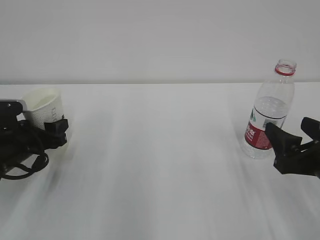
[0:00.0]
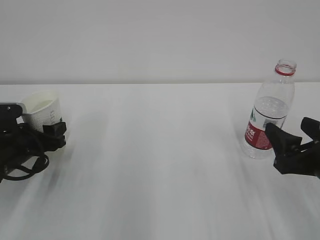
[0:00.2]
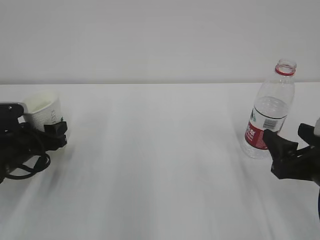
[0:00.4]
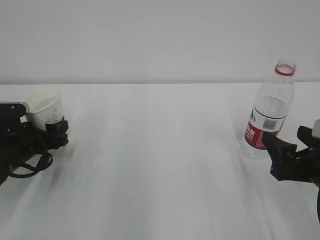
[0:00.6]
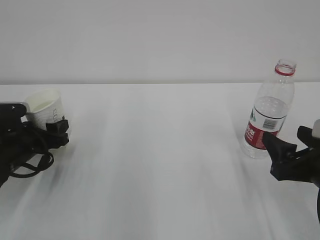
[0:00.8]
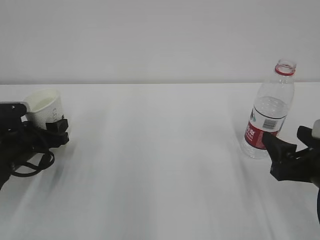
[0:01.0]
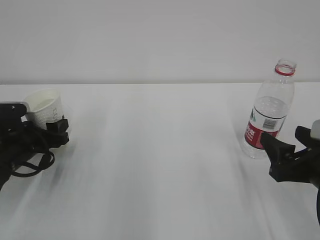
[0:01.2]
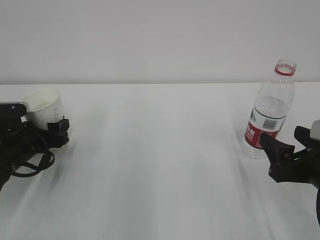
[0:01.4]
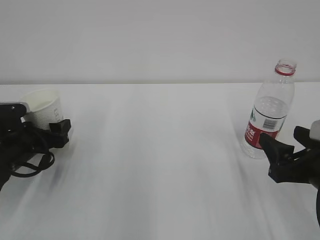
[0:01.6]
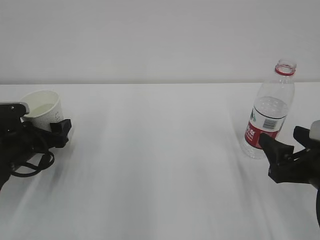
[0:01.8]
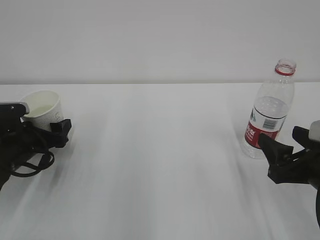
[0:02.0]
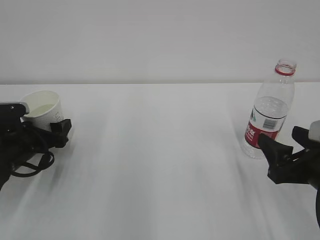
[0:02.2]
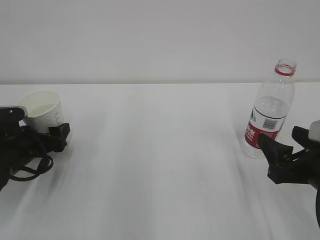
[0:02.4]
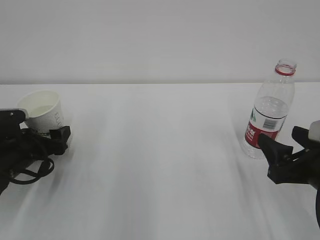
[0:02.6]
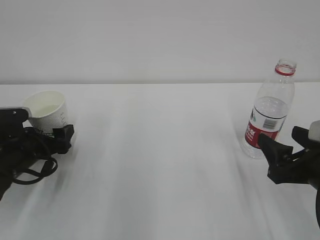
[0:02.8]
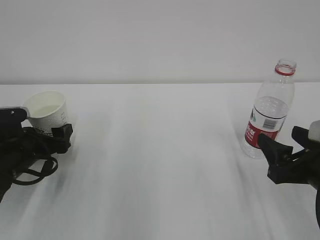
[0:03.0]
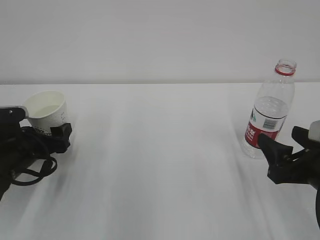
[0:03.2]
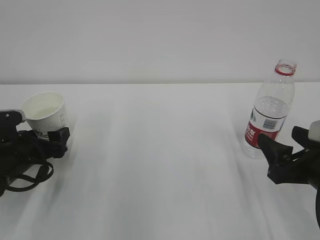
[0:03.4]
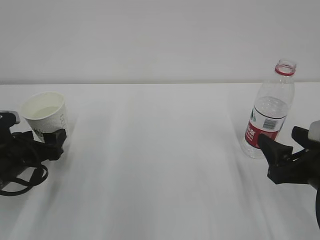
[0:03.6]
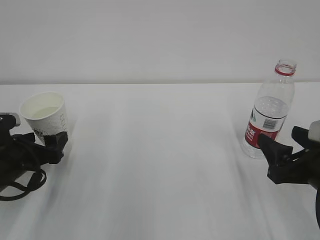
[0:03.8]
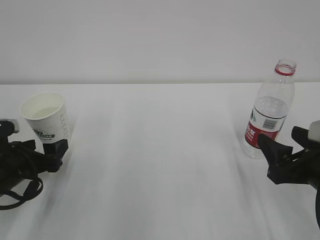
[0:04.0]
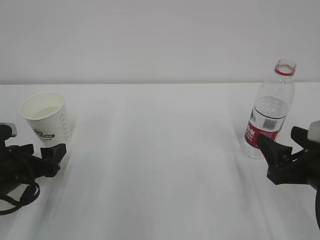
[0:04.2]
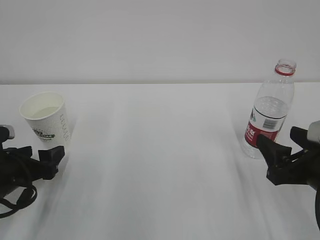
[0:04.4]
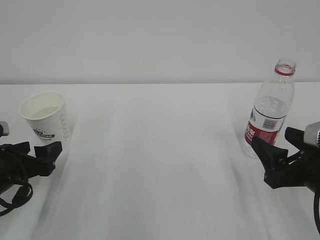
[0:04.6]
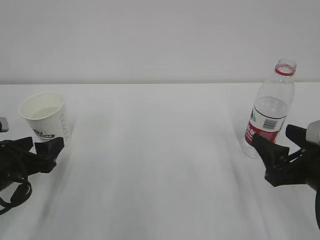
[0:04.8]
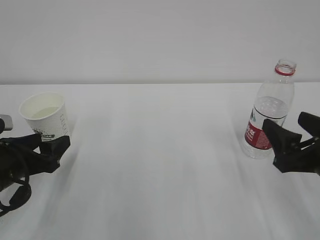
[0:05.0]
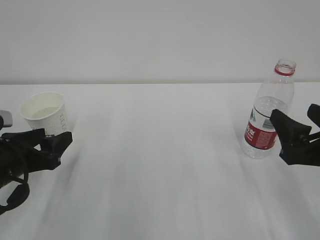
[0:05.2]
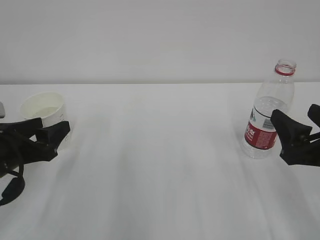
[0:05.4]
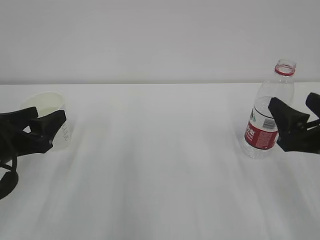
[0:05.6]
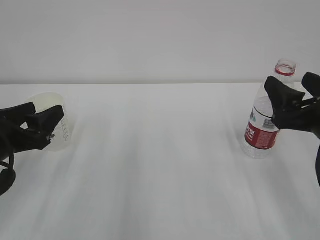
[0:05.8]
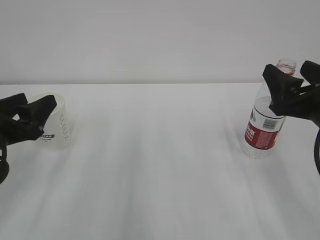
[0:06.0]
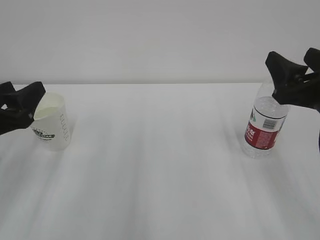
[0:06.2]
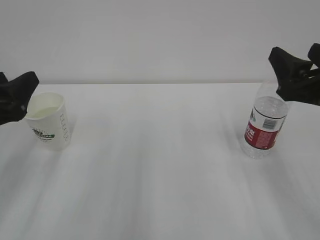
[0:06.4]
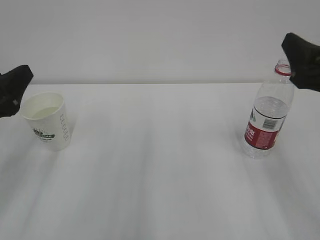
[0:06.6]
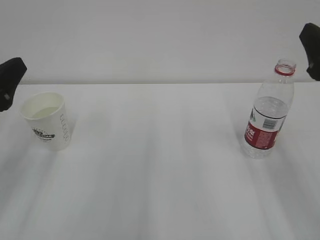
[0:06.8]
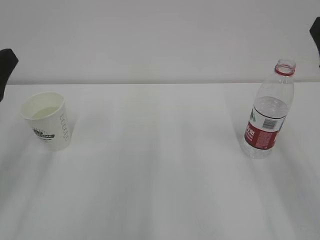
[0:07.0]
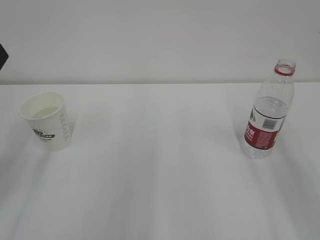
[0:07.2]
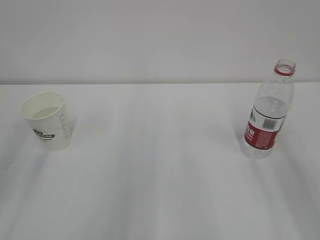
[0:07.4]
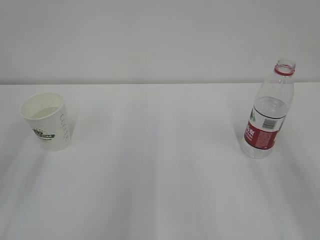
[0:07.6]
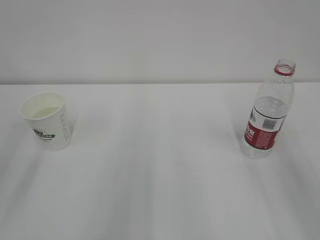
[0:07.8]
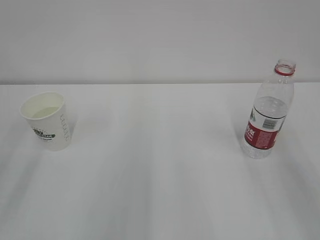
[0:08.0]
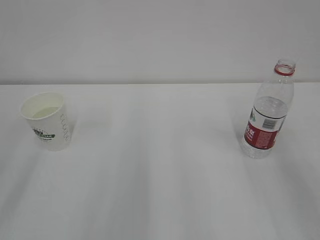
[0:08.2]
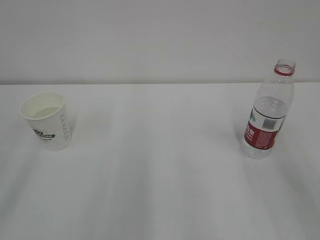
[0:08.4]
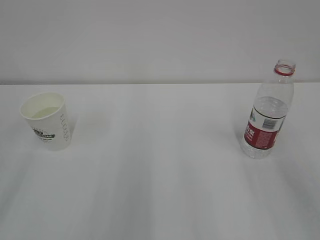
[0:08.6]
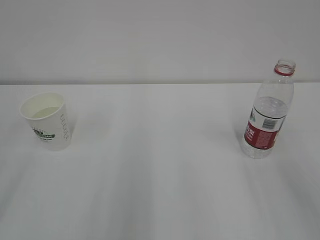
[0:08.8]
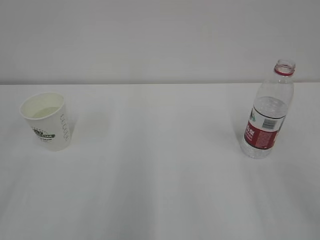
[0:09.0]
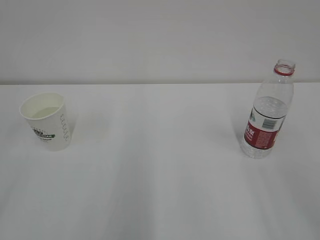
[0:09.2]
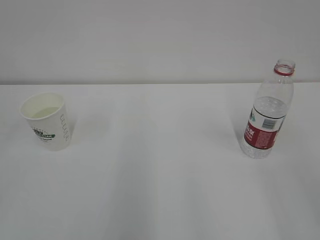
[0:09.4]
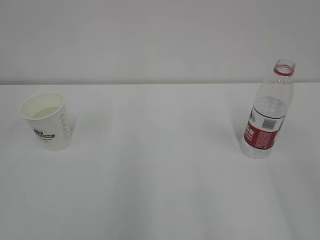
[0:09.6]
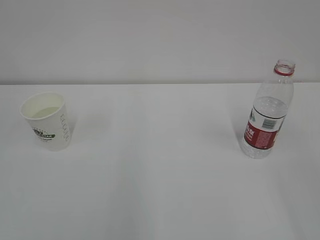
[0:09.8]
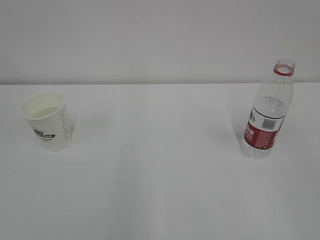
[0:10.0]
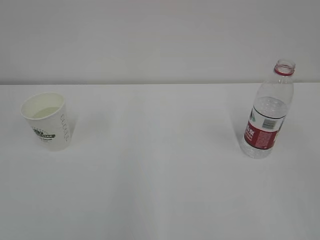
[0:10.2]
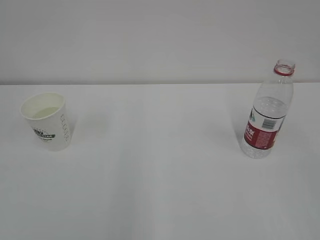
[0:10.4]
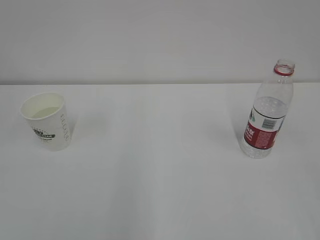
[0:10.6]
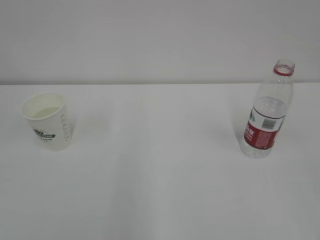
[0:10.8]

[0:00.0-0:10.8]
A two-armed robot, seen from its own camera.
0:00.0 to 0:01.6: The left gripper opens its fingers.
0:01.6 to 0:03.0: The grippers stay close to where they were, moving slightly.
0:03.0 to 0:04.6: The left gripper goes roughly 5 cm backward.
0:04.6 to 0:06.2: Both grippers move upward, some 10 cm.
0:06.2 to 0:07.8: Both grippers move upward and backward, some 10 cm.

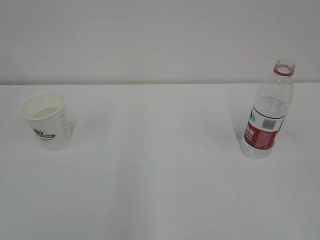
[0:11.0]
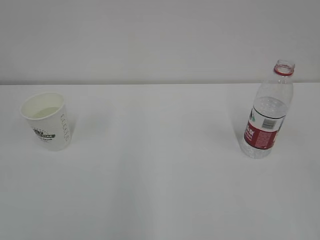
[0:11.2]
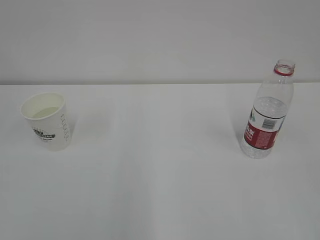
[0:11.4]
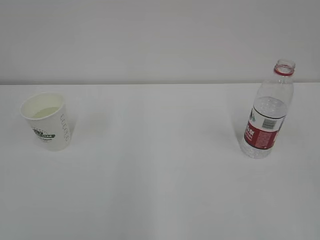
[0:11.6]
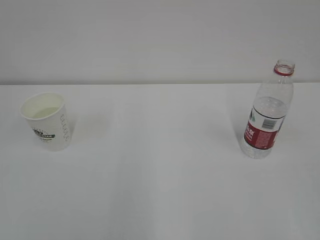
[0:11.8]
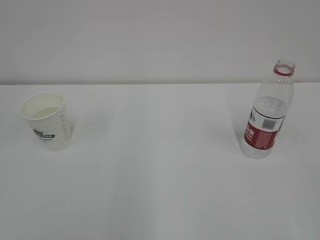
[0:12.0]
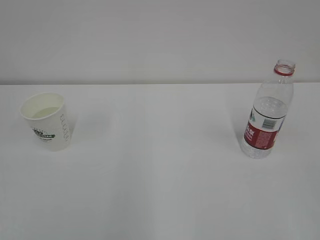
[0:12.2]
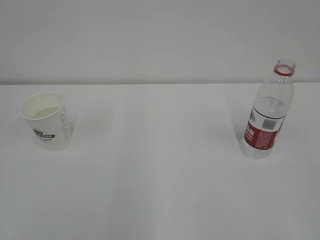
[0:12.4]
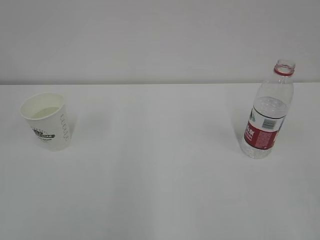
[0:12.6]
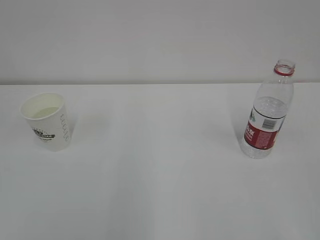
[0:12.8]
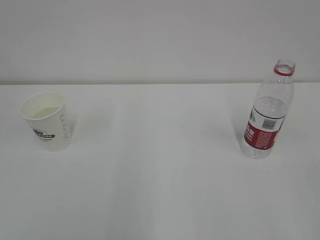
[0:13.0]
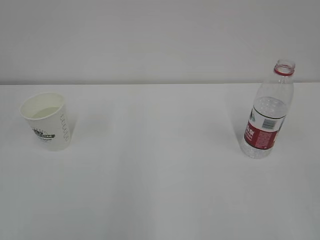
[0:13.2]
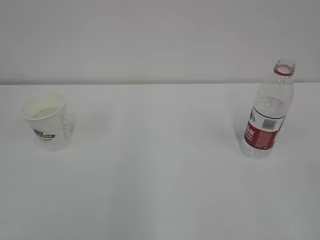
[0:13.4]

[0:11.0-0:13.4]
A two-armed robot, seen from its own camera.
0:12.2 to 0:13.4: Neither gripper changes place.

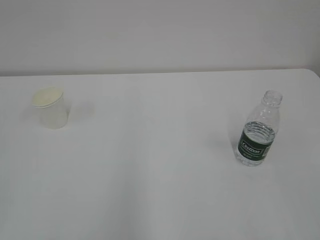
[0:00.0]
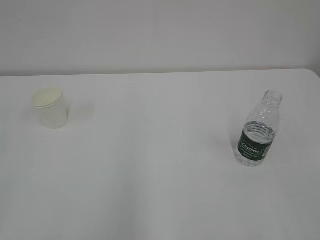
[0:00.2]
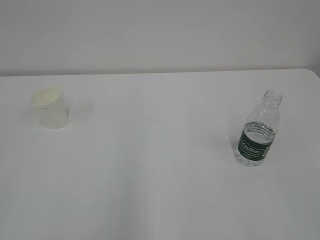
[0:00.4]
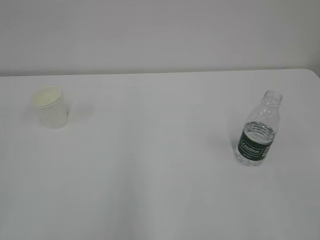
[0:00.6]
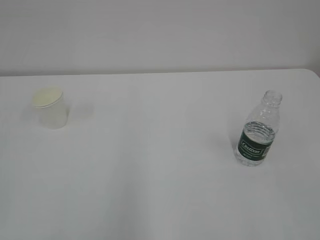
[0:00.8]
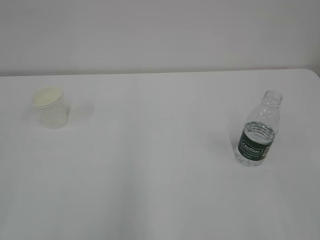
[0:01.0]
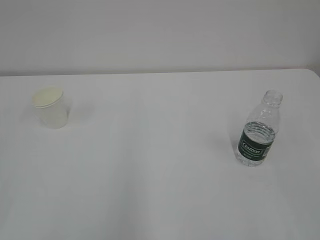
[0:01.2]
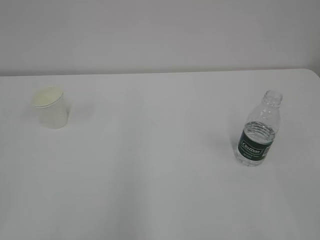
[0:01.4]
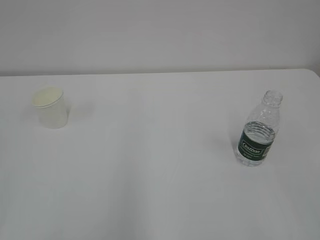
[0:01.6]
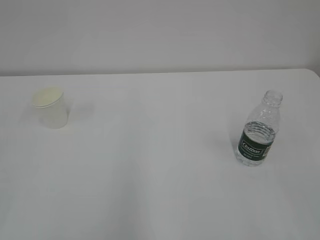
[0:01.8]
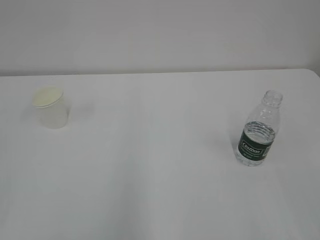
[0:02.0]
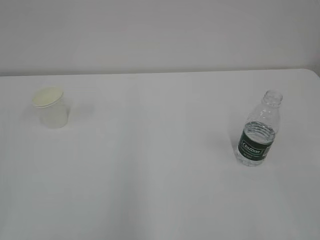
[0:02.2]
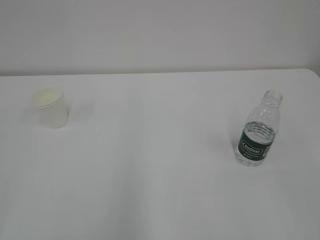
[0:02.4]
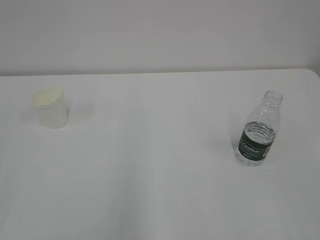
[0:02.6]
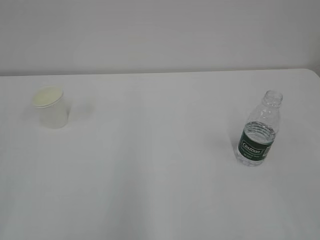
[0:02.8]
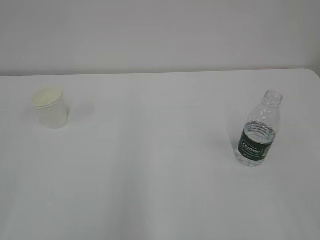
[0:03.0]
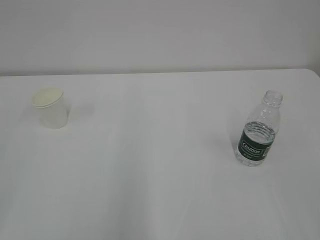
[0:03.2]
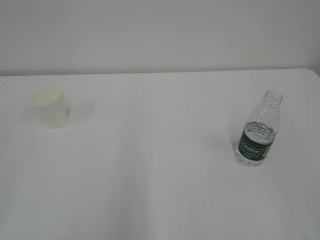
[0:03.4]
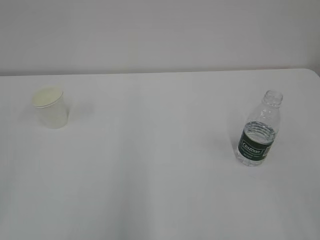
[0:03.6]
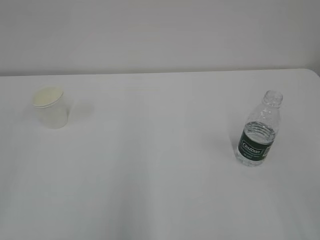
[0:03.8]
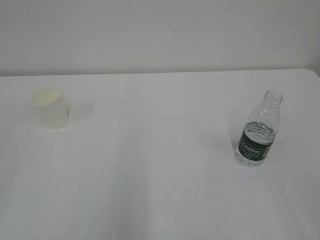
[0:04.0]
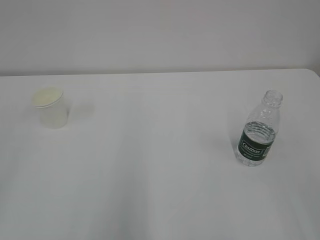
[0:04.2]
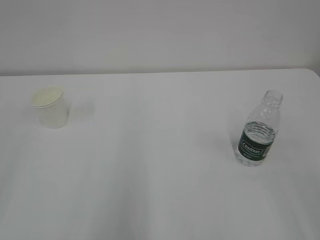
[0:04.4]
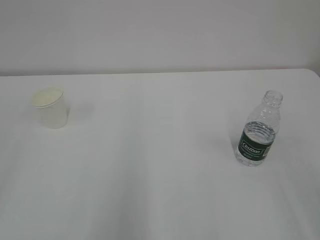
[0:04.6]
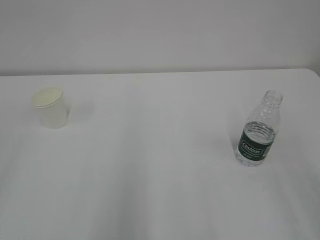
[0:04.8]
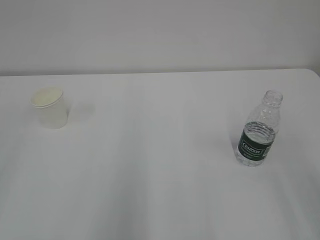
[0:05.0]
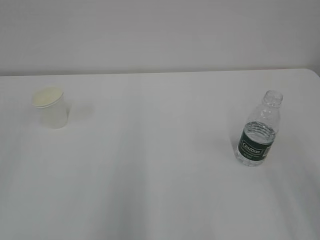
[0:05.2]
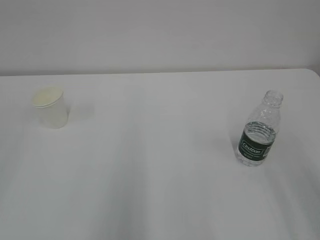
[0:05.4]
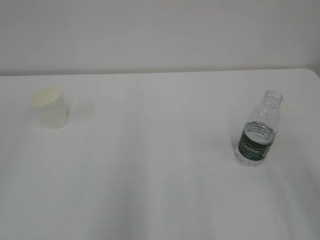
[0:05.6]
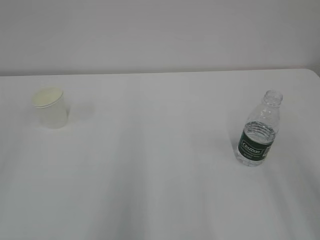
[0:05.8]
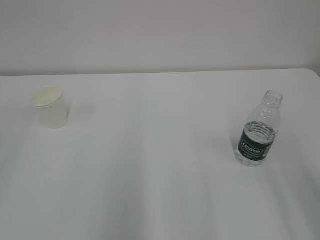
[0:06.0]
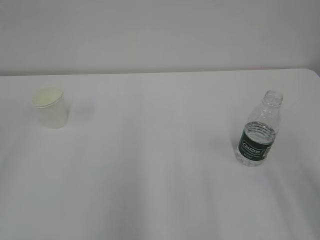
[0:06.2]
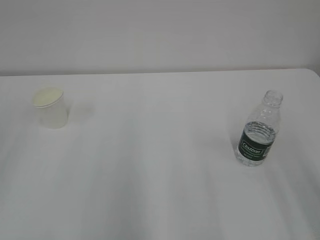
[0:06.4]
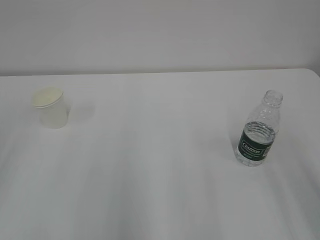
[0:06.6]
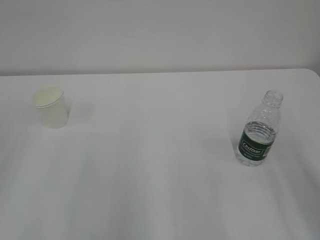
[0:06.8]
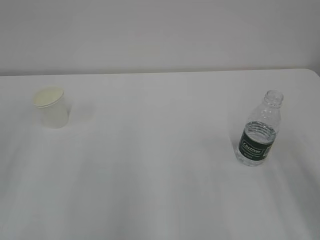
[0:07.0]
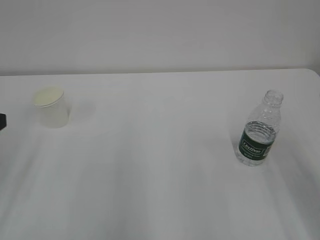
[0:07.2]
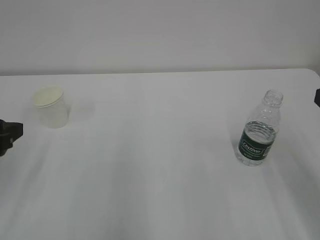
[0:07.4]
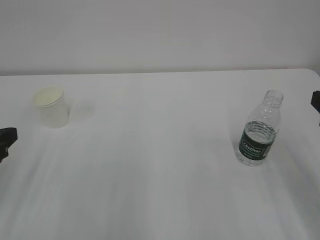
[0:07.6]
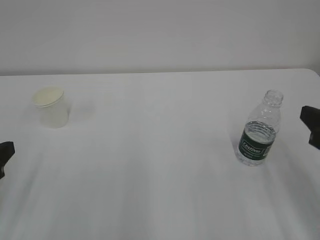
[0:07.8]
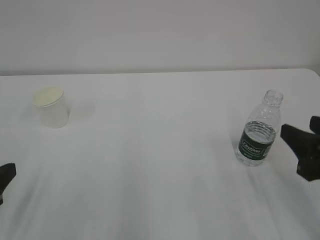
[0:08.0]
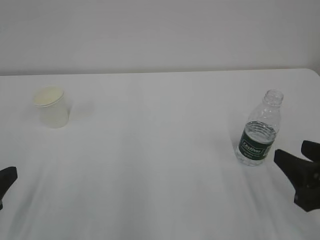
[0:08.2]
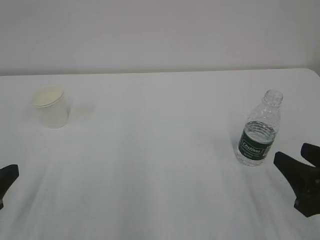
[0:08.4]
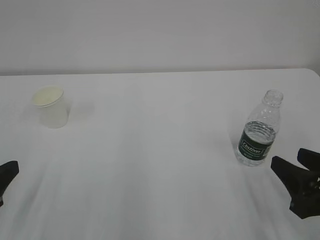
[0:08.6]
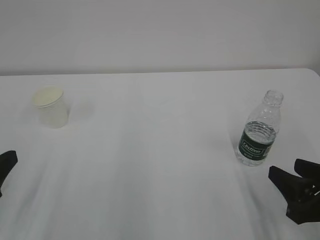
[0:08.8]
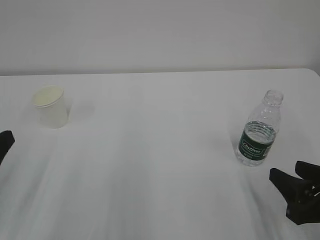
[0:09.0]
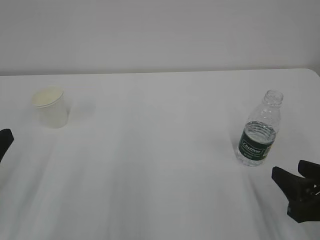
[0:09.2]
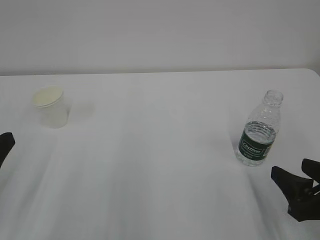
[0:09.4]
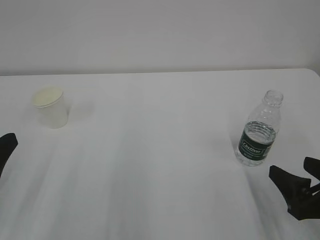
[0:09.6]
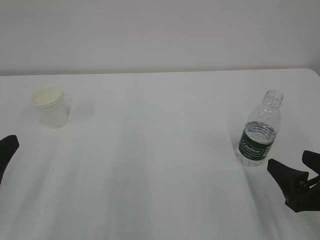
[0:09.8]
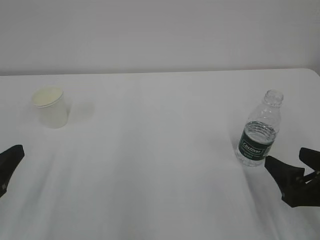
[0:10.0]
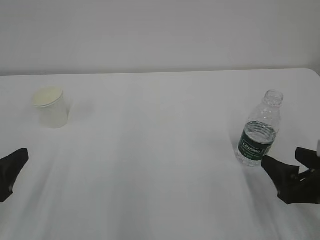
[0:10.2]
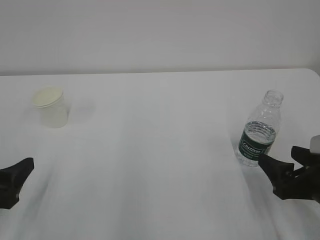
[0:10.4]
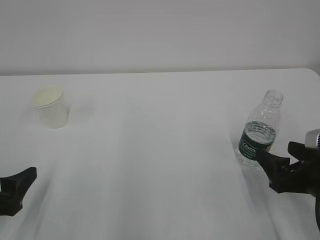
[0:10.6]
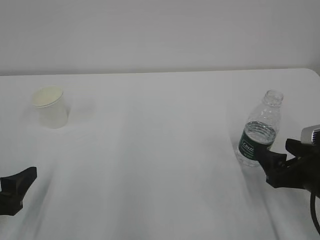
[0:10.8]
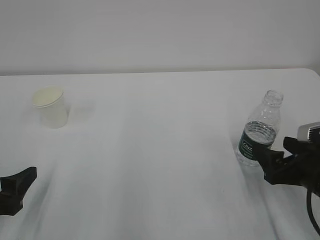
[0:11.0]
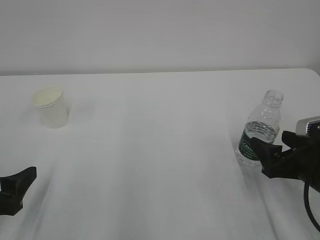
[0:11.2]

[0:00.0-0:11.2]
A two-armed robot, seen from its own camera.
0:06.4 to 0:08.0: The right gripper moves downward and forward, roughly 15 cm. The left gripper heads downward, covering some 15 cm.
0:08.0 to 0:09.6: The right gripper moves downward, some 5 cm, and opens its fingers; the left gripper opens.
0:09.6 to 0:11.2: The right gripper heads forward, covering approximately 5 cm. Meanwhile the left gripper shifts approximately 5 cm downward.
